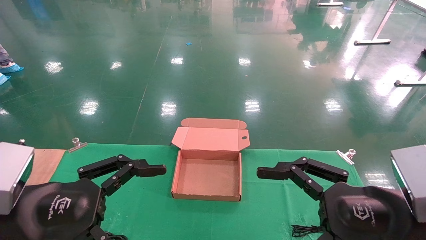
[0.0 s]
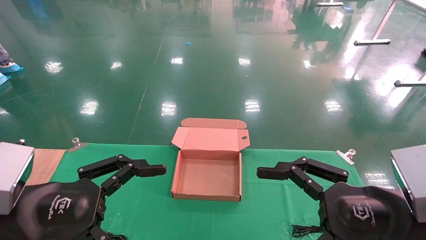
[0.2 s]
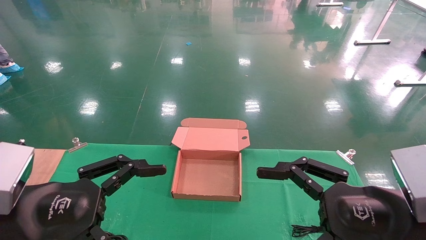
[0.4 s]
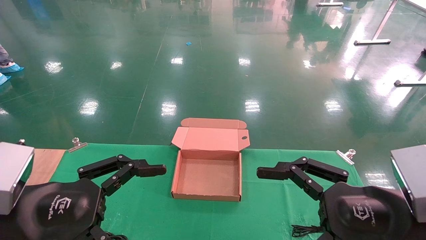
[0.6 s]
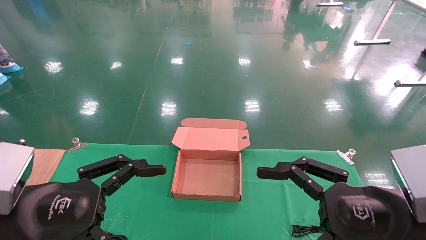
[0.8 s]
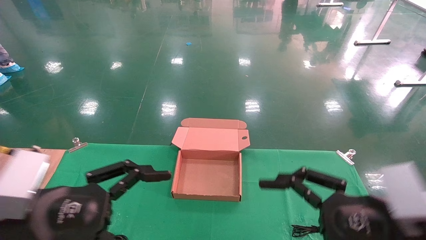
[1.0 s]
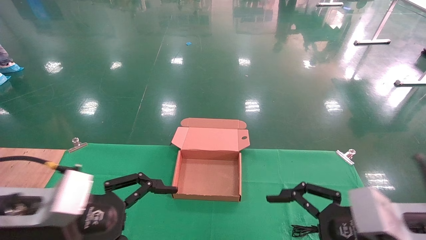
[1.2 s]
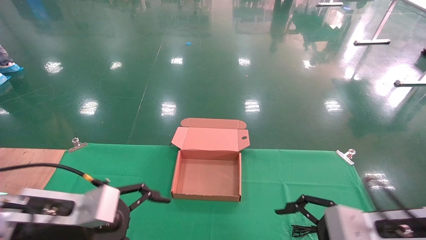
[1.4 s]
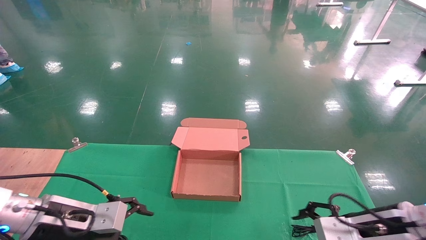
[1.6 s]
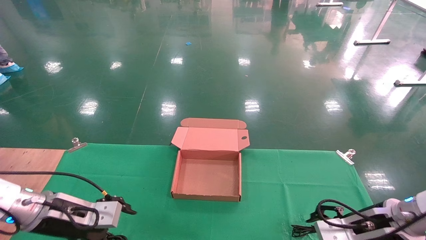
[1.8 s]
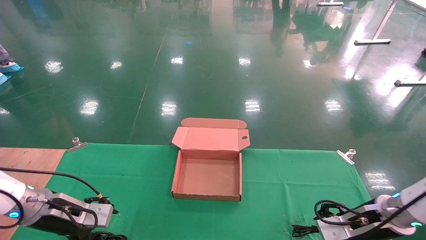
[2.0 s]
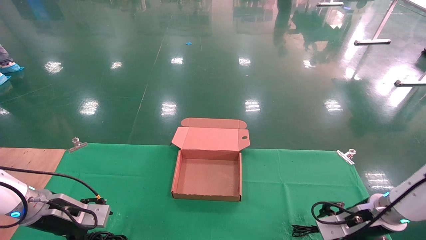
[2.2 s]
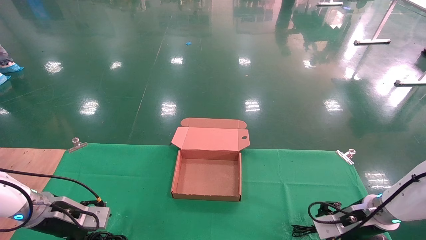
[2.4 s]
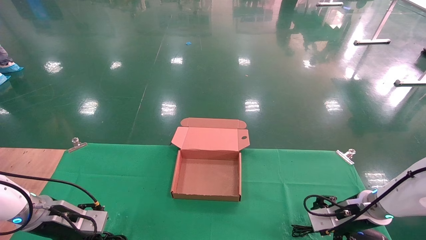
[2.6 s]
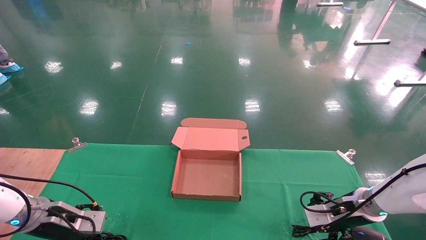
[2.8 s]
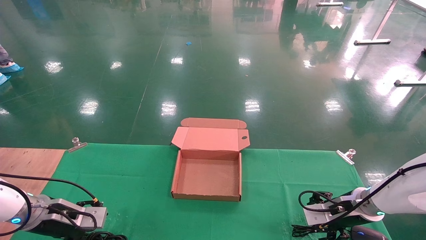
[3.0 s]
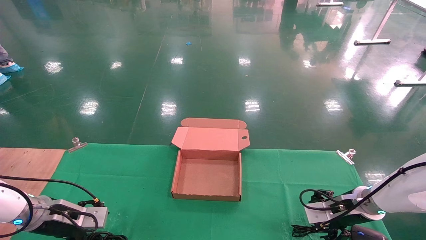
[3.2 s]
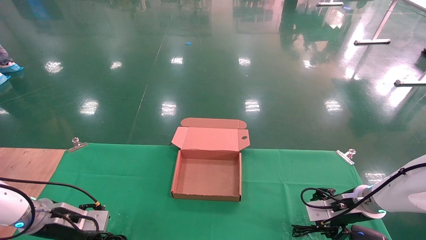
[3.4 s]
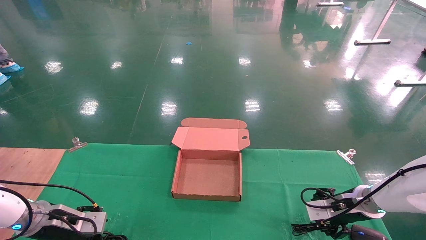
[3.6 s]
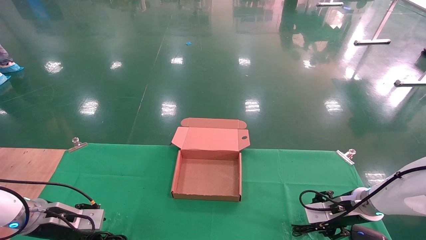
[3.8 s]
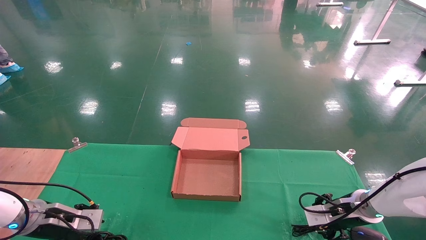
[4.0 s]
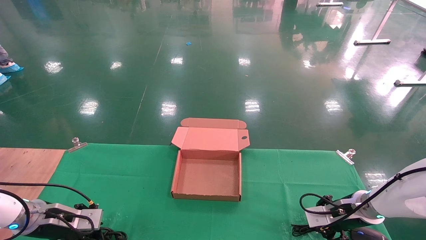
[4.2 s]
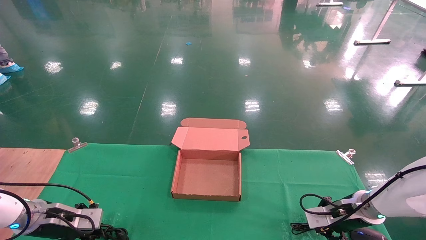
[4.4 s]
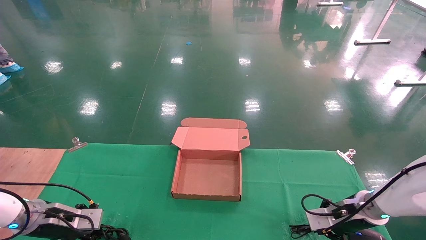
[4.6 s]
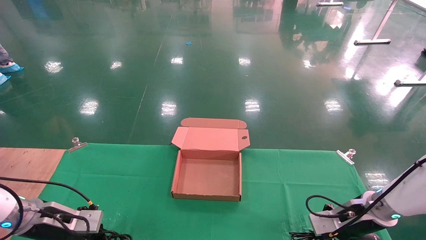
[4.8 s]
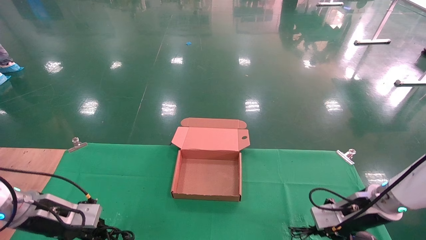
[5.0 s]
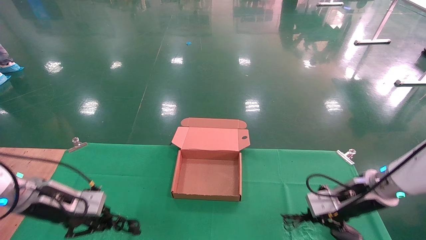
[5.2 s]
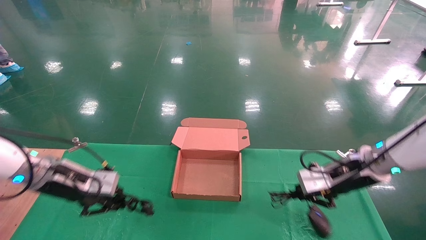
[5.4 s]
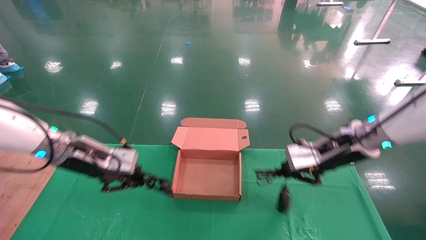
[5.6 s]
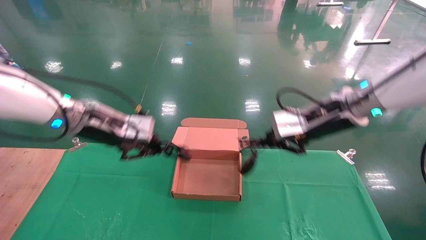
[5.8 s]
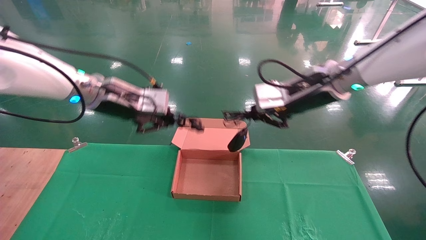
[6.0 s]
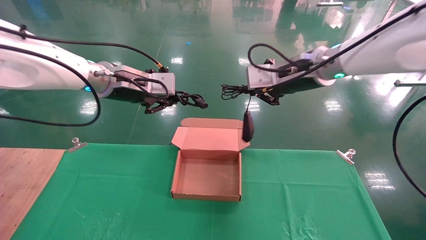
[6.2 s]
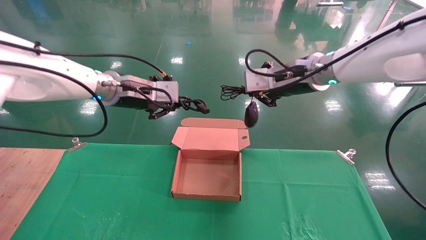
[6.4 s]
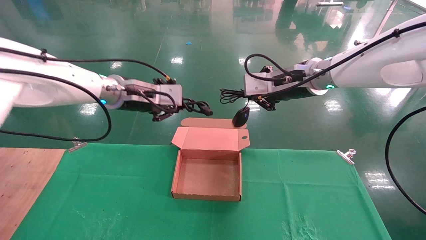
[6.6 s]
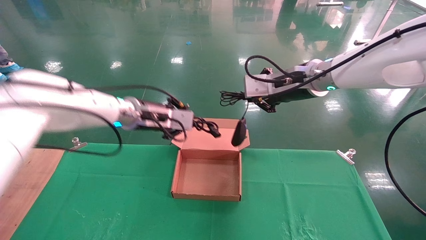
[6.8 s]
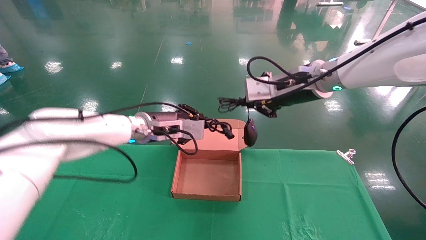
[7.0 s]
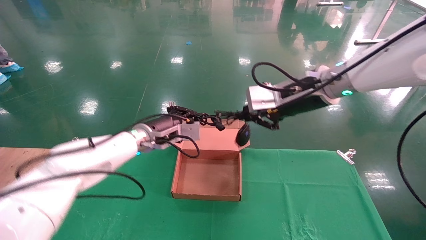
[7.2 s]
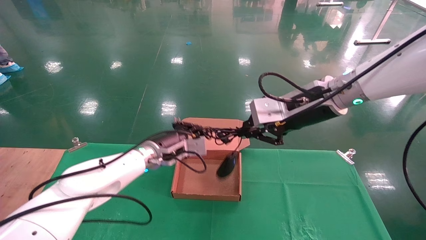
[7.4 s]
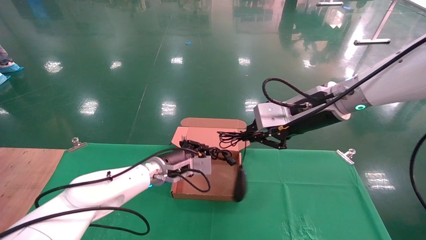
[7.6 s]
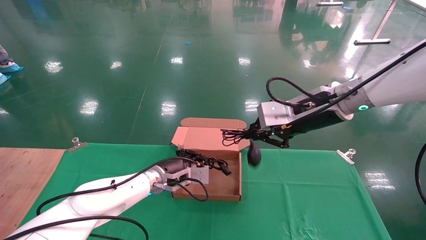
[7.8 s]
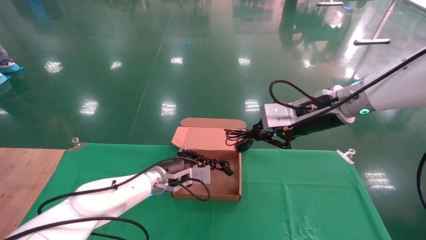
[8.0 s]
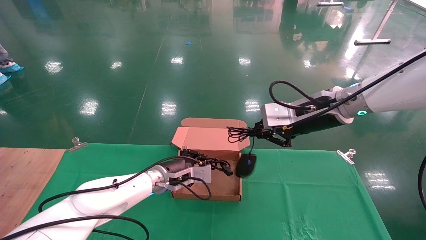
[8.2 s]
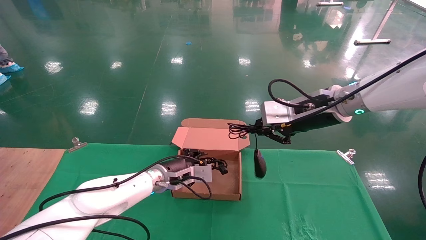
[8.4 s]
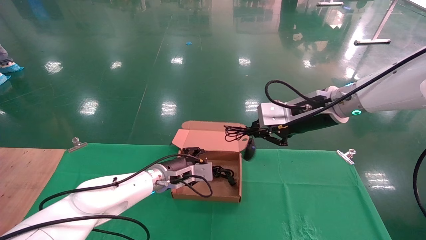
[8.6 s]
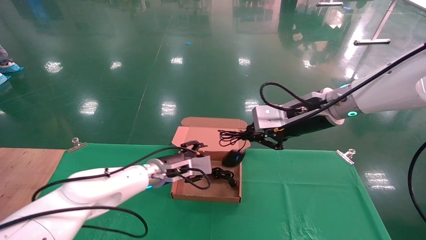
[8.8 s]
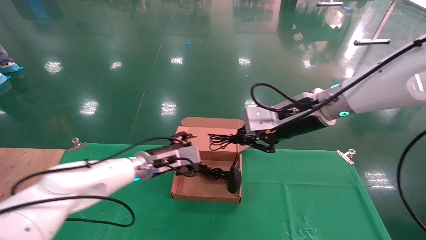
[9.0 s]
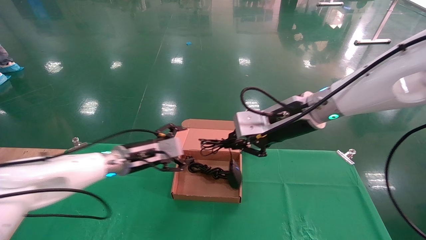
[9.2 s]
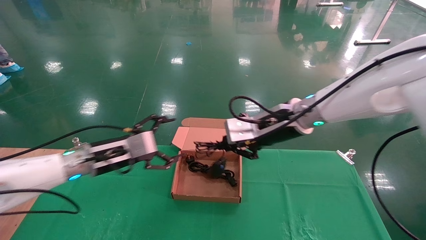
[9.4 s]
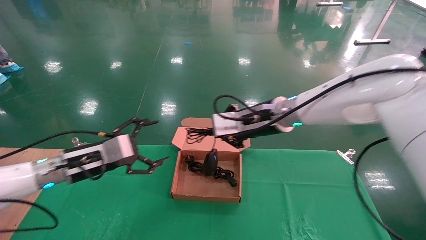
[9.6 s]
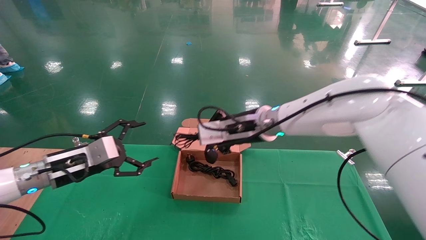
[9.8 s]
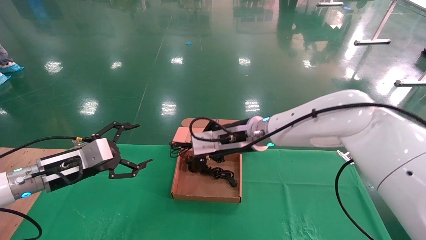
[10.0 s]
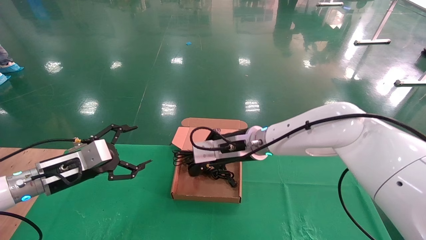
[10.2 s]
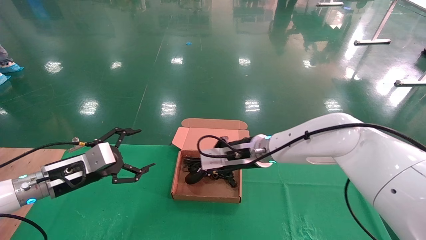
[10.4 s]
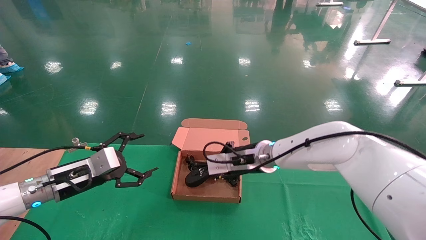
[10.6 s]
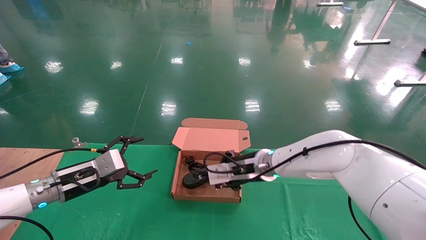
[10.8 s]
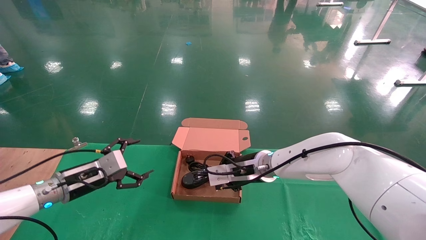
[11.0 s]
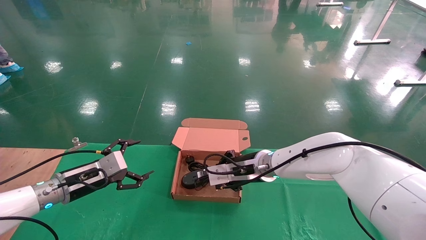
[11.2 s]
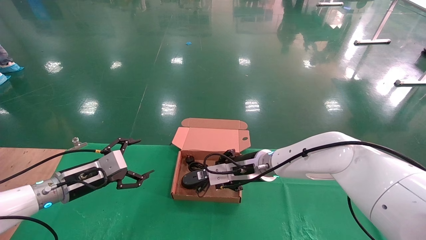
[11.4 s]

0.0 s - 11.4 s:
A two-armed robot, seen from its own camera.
Step, 1.2 s - 5.6 s: Grab and lift both the mouse and power cord from the accessory packaging area at the same time.
0.0 s - 1.4 s: The two grippers go some 10 cm forward and downward.
1.4 s - 2.8 s: The right gripper moves forward and downward, approximately 20 cm; the left gripper goes roughly 20 cm forward, to the left and downward.
2.8 s - 4.2 s: The left gripper closes its fingers. Meanwhile the right gripper closes up.
4.2 s - 5.6 s: The right gripper travels upward by some 20 cm, and closes up, while the left gripper travels upward and to the right by some 20 cm, and closes.
5.6 s - 7.2 s: The right gripper heads upward and to the left, covering some 10 cm, while the left gripper is displaced to the right and forward by approximately 15 cm.
7.2 s - 8.6 s: The left gripper is displaced downward by about 10 cm.
8.6 s - 10.0 s: The right gripper travels to the left and downward by some 15 cm. The left gripper shifts roughly 25 cm to the left and backward, and opens its fingers.
10.0 s - 11.4 s: The left gripper shifts by about 5 cm, while the right gripper moves downward, roughly 10 cm.

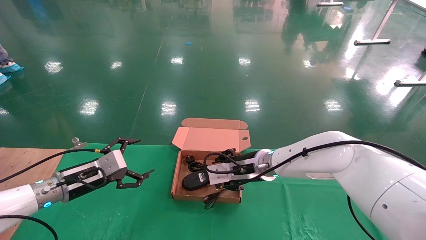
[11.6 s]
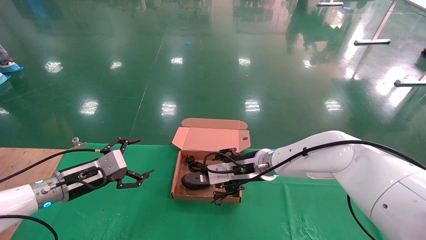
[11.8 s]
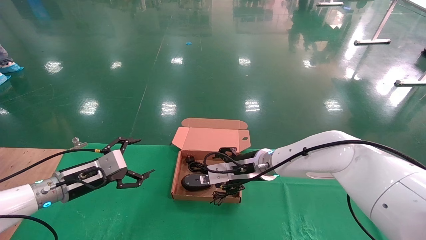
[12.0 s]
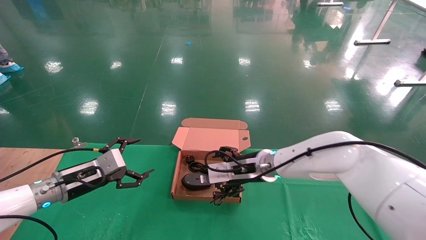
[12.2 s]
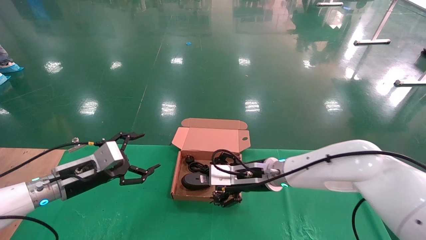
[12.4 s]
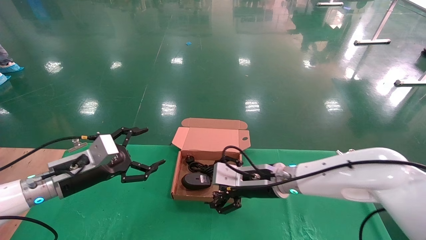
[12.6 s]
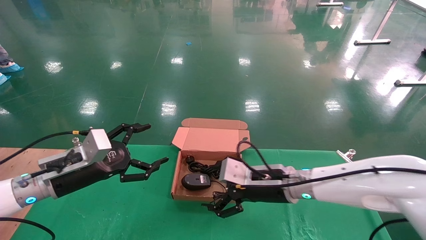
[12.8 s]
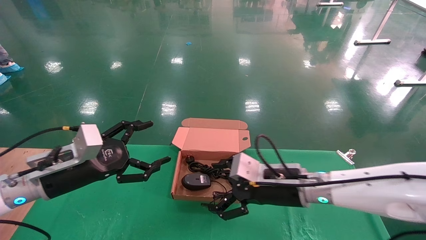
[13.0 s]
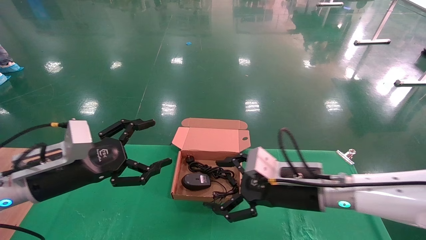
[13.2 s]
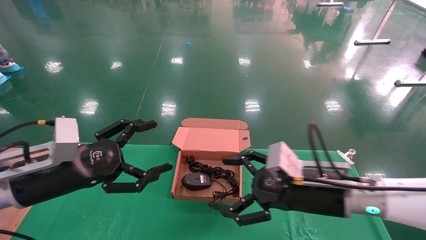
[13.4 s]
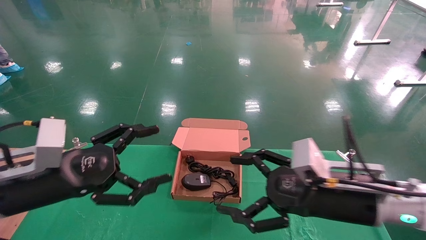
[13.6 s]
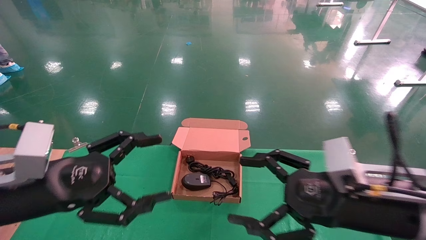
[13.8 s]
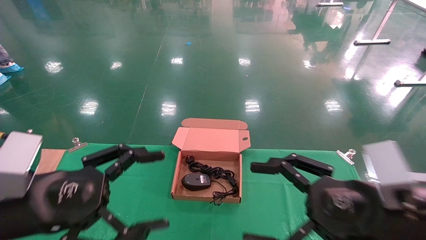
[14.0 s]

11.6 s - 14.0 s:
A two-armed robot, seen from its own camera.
11.6 s - 12.8 s: The two grippers go some 5 cm backward. The right gripper opens up.
12.8 s - 14.0 s: The right gripper goes some 20 cm backward and to the right. Meanwhile the left gripper shifts roughly 15 cm backward.

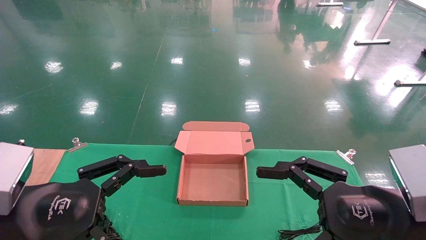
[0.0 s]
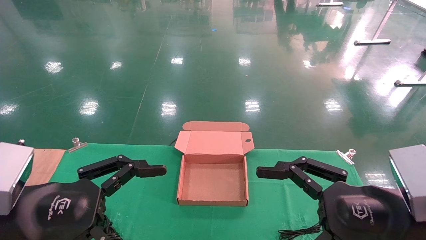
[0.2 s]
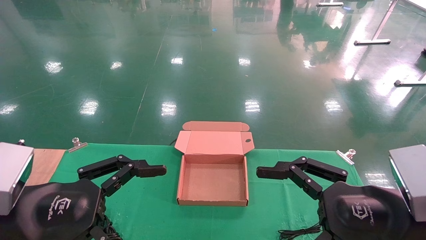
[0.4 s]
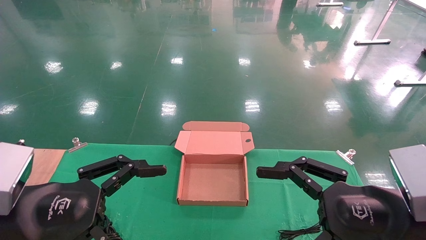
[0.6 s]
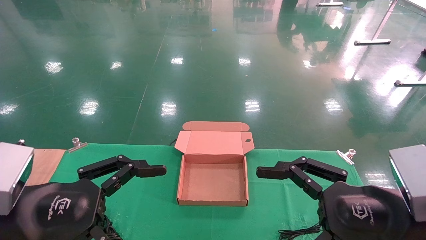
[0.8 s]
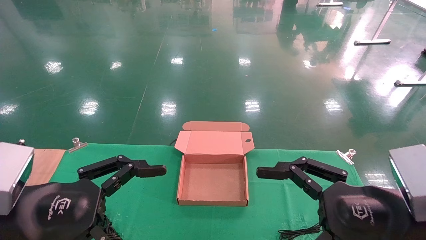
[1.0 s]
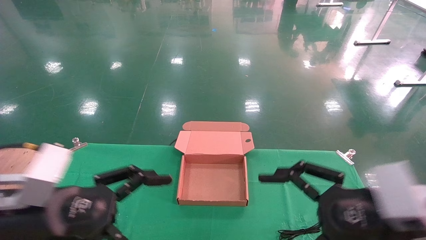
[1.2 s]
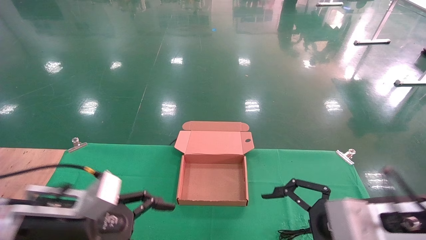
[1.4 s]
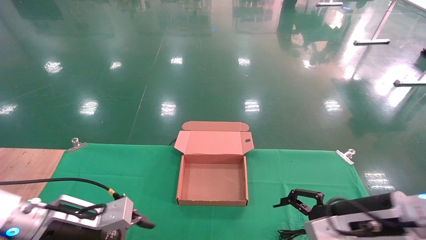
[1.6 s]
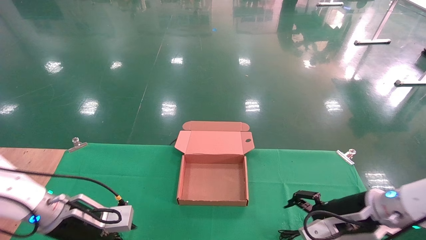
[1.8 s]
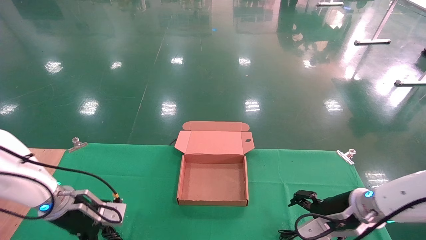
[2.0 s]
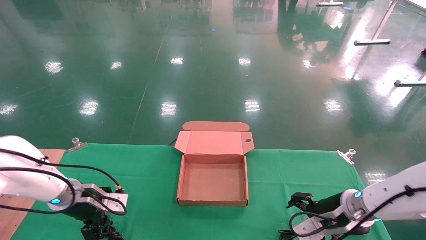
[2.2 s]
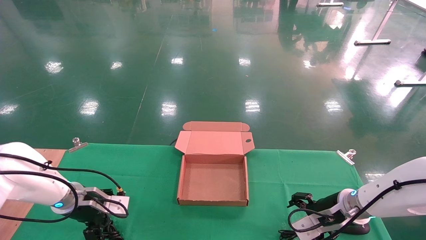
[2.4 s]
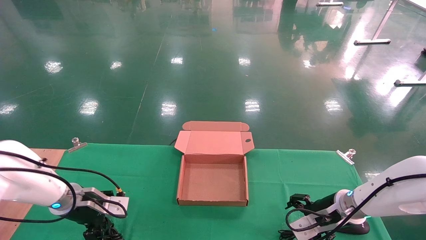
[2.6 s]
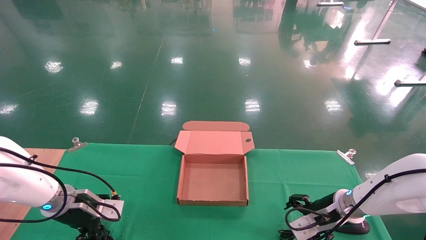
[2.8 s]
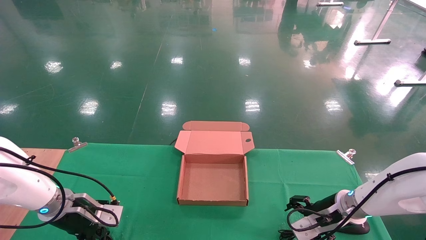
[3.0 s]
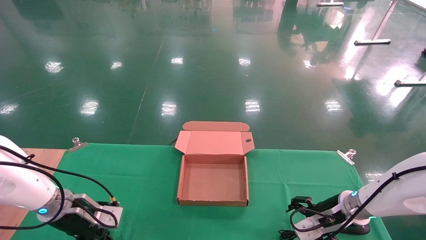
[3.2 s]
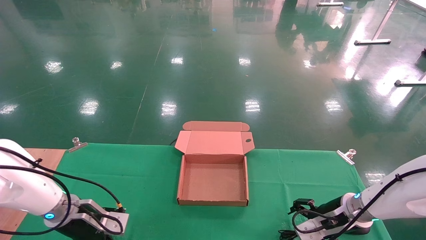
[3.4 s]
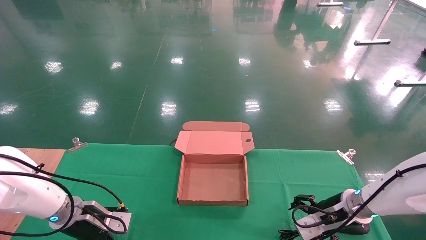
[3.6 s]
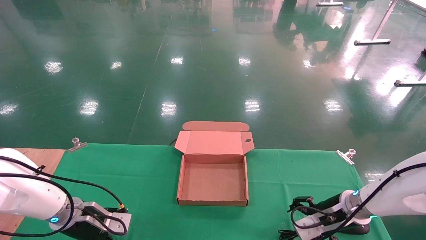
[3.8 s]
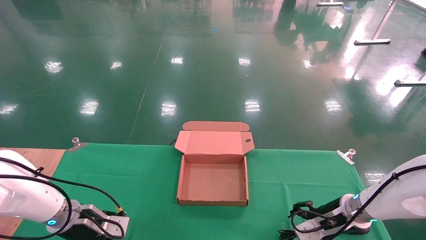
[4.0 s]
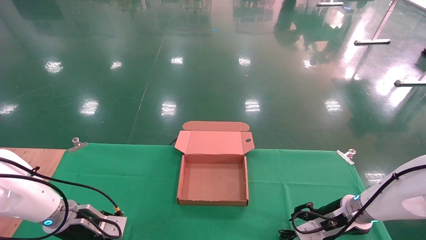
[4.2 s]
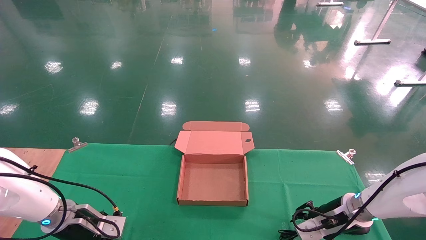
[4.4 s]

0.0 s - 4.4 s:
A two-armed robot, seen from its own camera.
0.0 s - 1.4 s: The right gripper goes roughly 5 cm forward. Meanwhile the left gripper travels forward and downward by roughly 10 cm.
1.4 s - 3.0 s: The left gripper goes about 15 cm forward, to the left and downward; the right gripper goes roughly 20 cm forward and downward.
3.0 s - 4.4 s: The right gripper closes.
